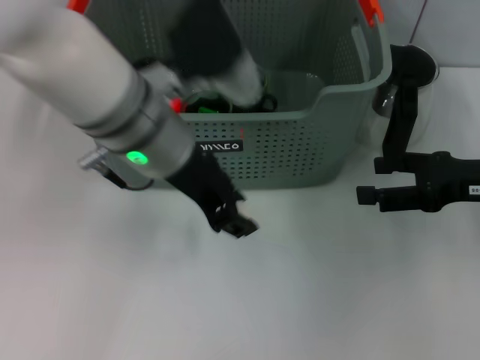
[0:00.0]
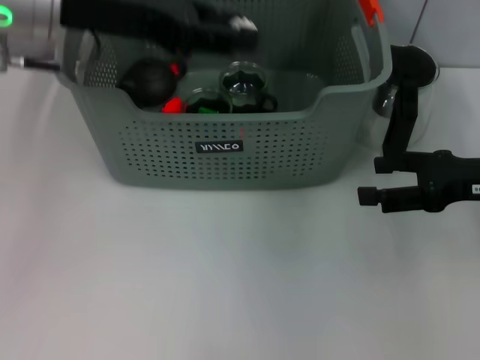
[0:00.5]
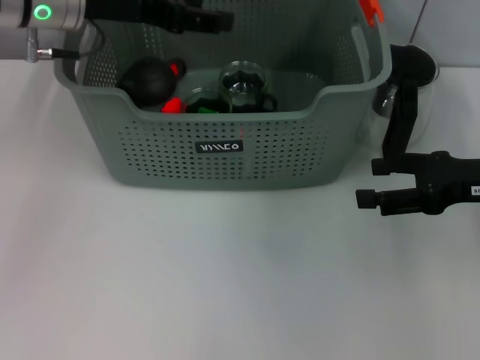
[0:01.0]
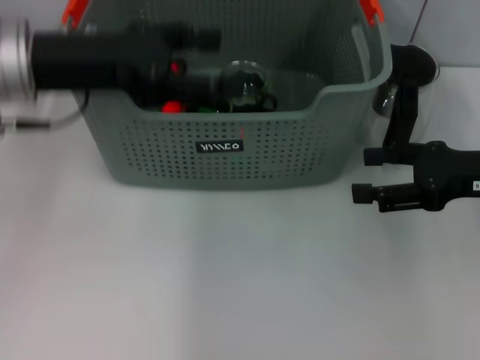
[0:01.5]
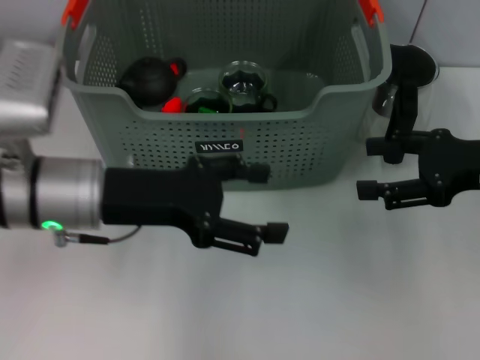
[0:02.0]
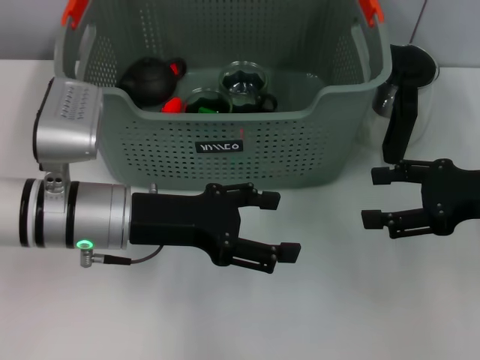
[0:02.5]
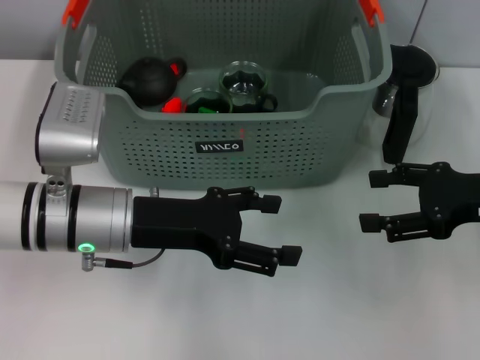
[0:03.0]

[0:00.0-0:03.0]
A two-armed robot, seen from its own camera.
Task of the whole recording: pick up the teacup on the table and place it into the storage bin, pick up the block on the table and place it into the storage bin.
0:00.0 to 0:01.5: The left gripper is displaced to the left by some 10 cm, and opens.
0:01.5 to 0:03.0: The left gripper travels downward and to the right by about 15 cm.
